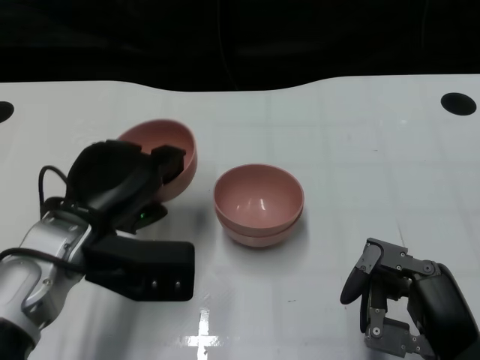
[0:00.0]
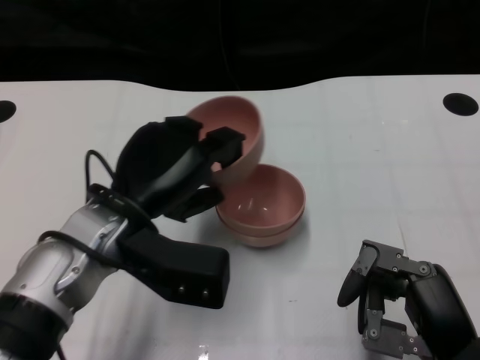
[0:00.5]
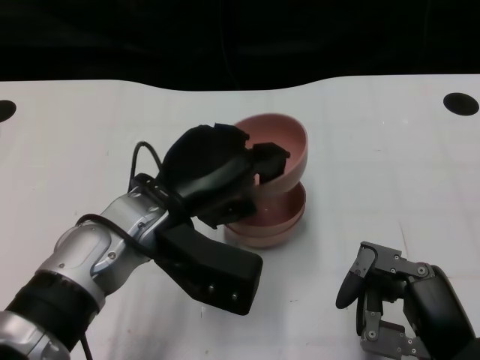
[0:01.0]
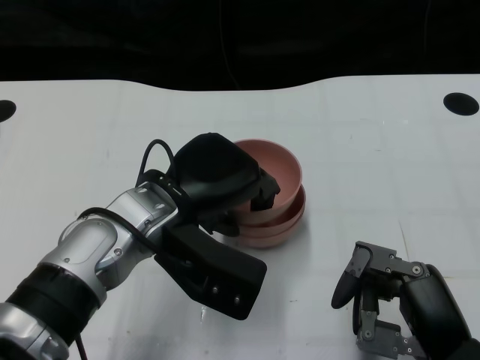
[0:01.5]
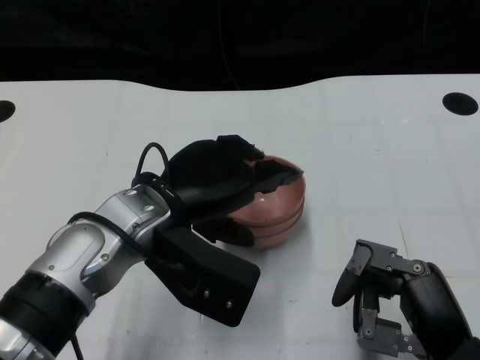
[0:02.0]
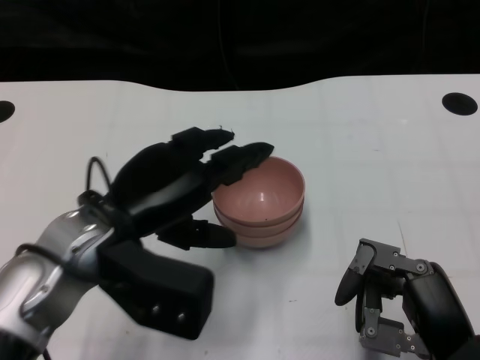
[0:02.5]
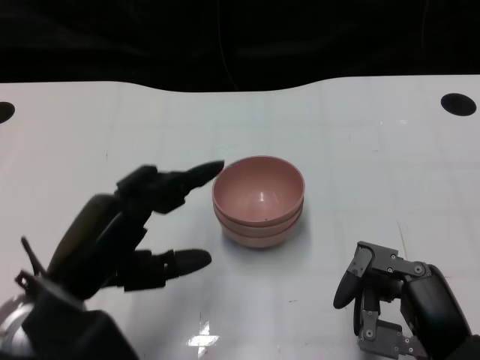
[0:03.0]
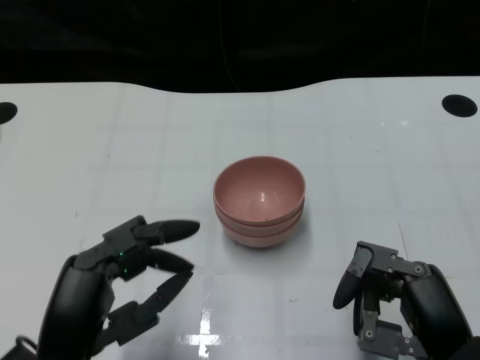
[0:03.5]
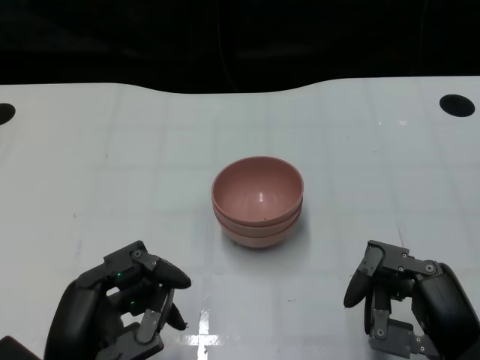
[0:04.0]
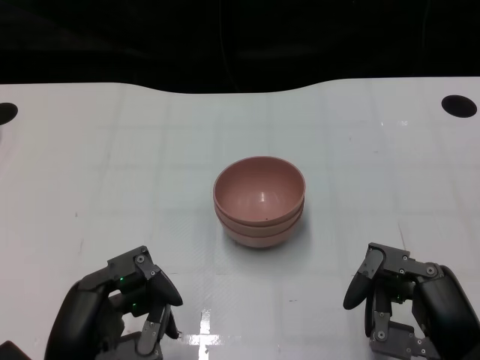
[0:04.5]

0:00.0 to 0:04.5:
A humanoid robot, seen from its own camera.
Task of the whole recording: Pick up the bowl on one side of the table and place it on top of the middle bowl, then pick up the bowl on the other side of the table and place it on top of the middle bowls.
Step, 0:00.0 to 0:02.5: Place the bowl on the left onto the bowl in the middle with left gripper.
0:00.0 to 0:02.0: The left hand travels to the right by approximately 5 cm.
0:02.0 to 0:04.5: The left hand heads backward, to the left and downward, covering about 20 cm.

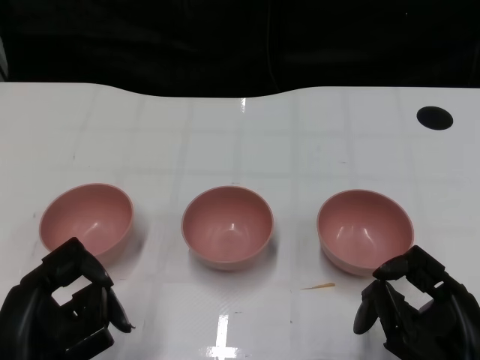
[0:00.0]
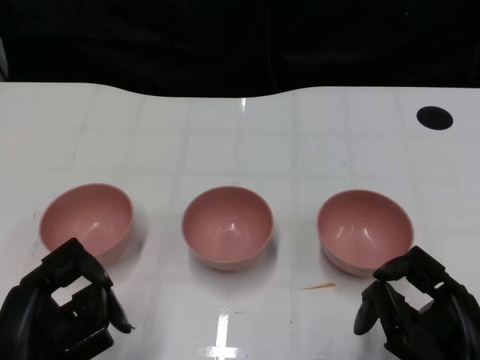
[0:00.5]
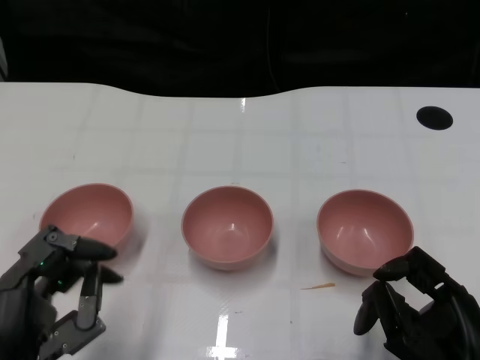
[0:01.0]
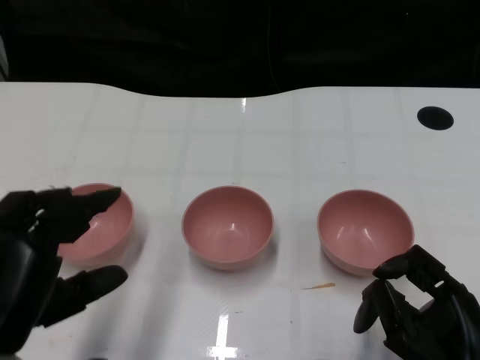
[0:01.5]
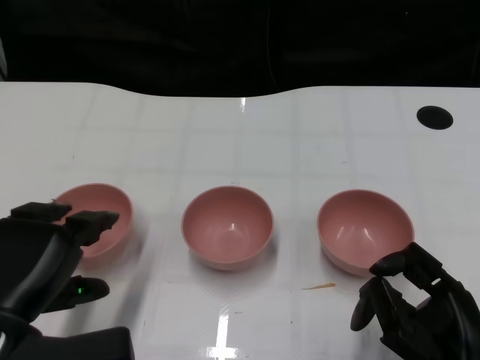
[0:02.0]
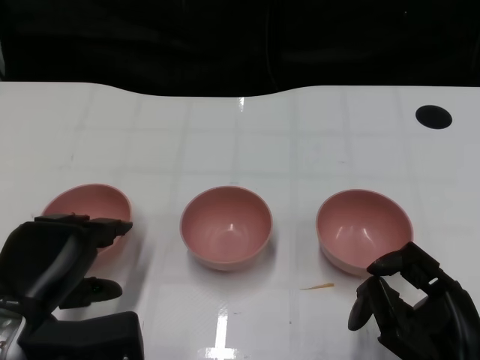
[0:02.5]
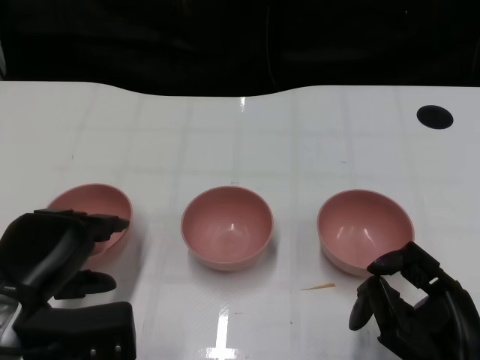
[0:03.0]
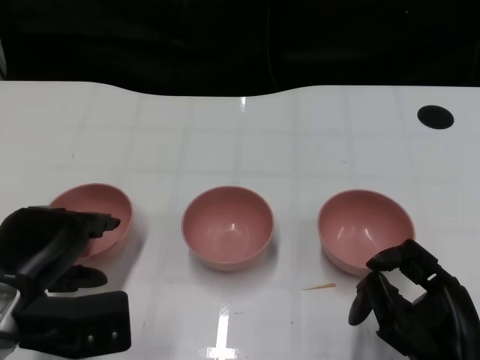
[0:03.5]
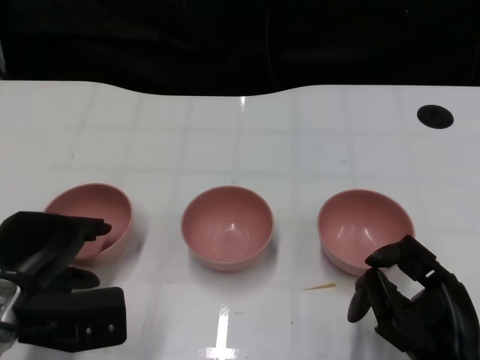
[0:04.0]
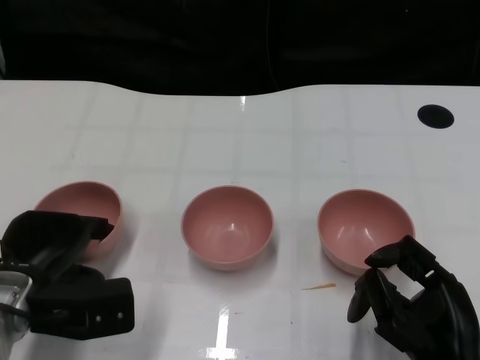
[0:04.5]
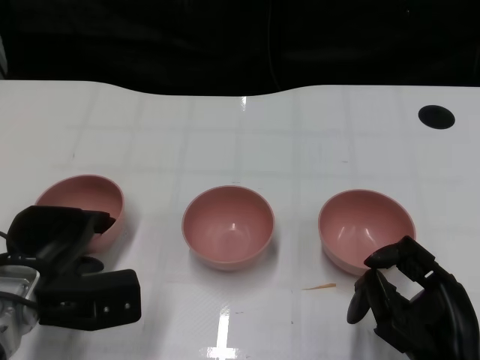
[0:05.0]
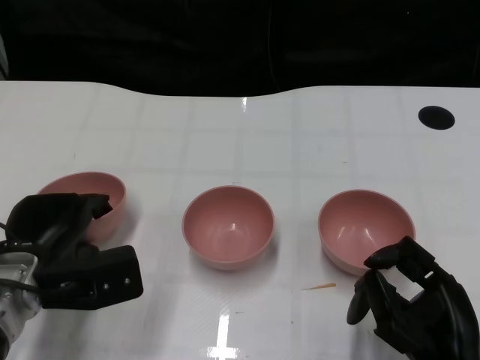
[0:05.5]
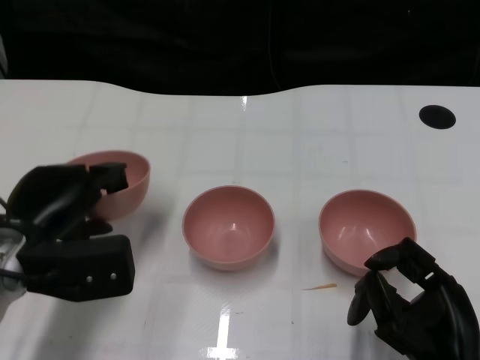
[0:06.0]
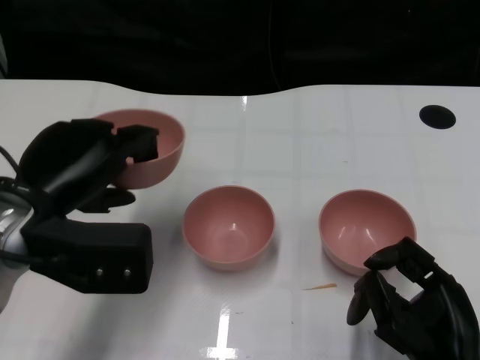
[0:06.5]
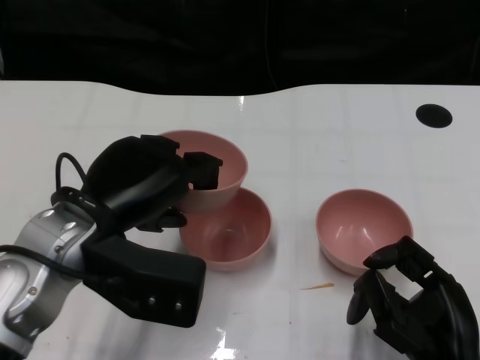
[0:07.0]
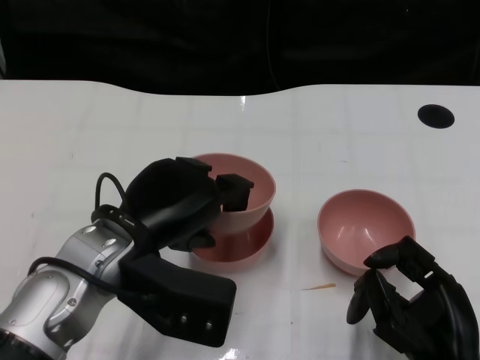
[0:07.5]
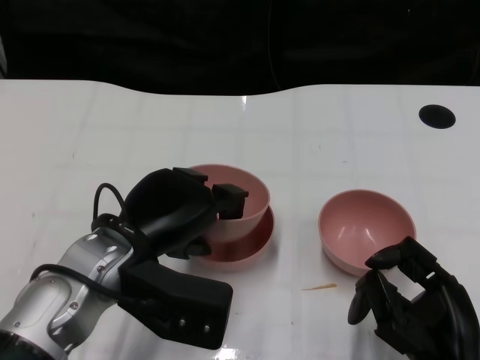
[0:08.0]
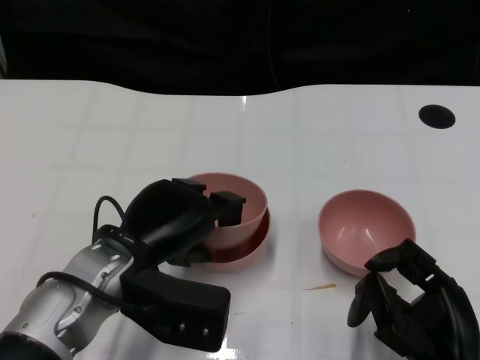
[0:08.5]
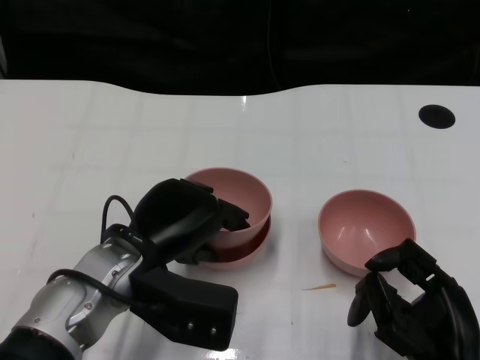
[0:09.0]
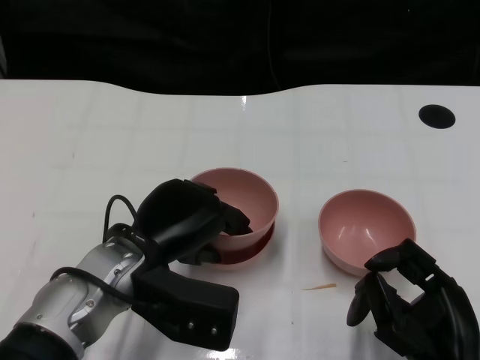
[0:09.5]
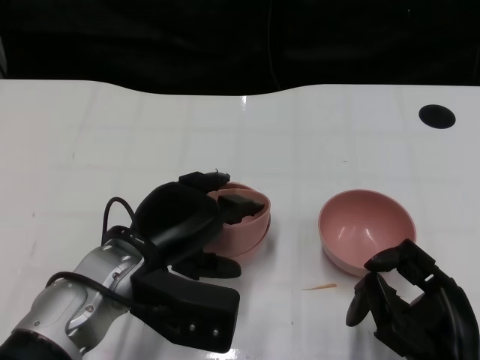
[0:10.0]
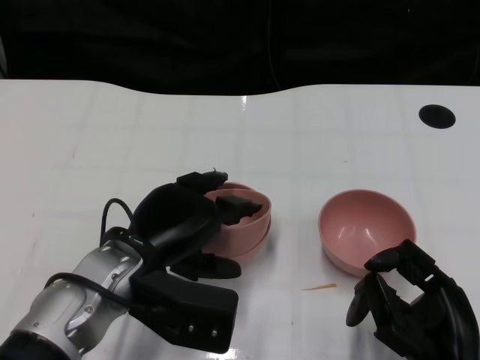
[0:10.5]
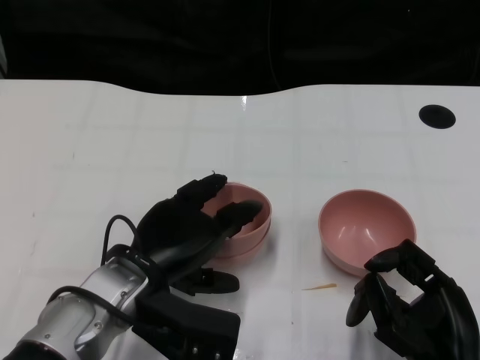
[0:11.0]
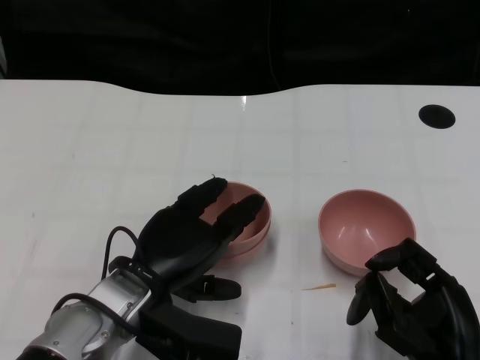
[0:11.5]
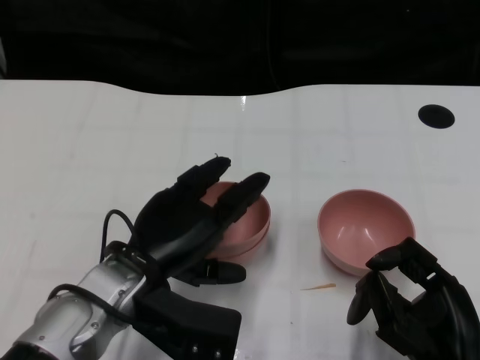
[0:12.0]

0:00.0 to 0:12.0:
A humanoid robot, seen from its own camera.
Task of the whole recording: Pick up the bowl on one side of the table and place it on top of the middle bowl, then pick up the bowl on the other side of the table and place it on top of the middle bowls.
Step, 0:01.0 to 0:05.5: Grasp the bowl on the left with the left gripper.
0:02.0 to 0:04.0: The left hand is displaced forward by some 5 cm.
0:04.0 to 0:06.0: There are only small adjustments of the hands.
0:06.0 to 0:08.0: The left hand is displaced to the right by about 10 cm.
0:08.0 to 0:12.0: The hands make only small movements.

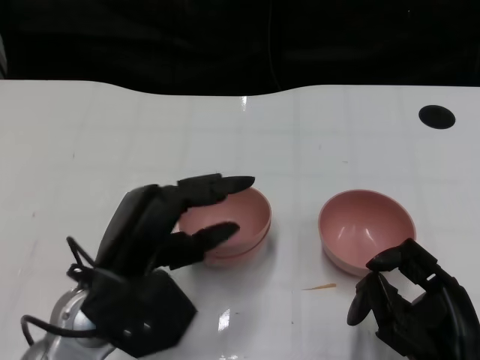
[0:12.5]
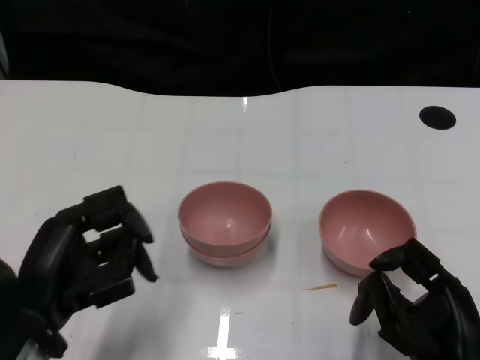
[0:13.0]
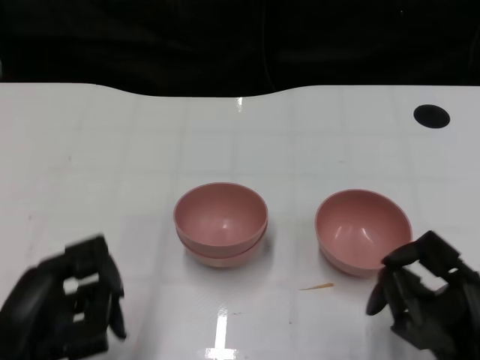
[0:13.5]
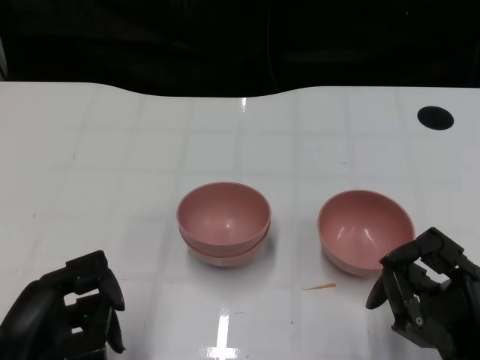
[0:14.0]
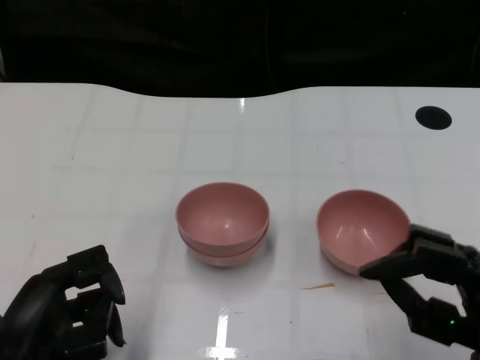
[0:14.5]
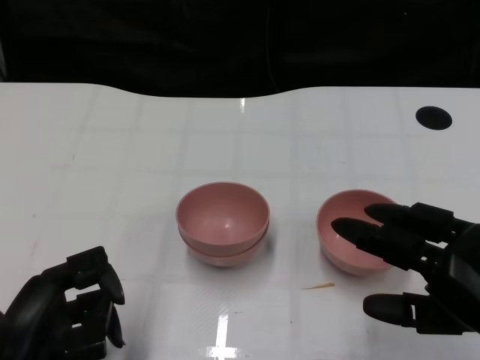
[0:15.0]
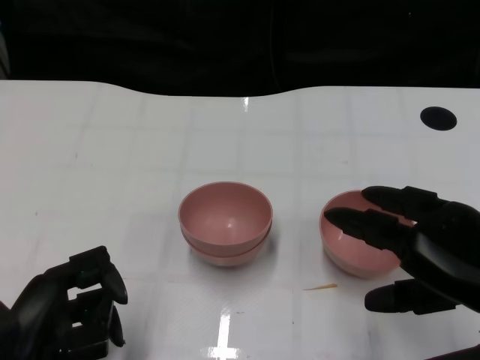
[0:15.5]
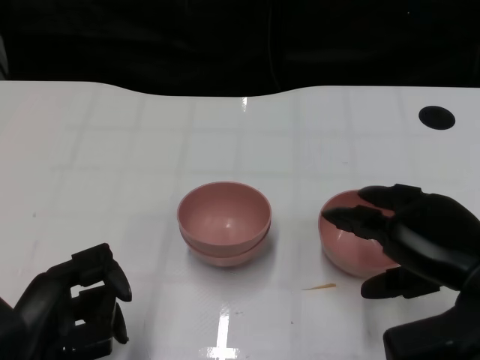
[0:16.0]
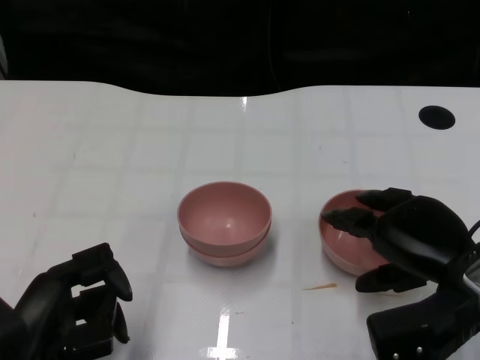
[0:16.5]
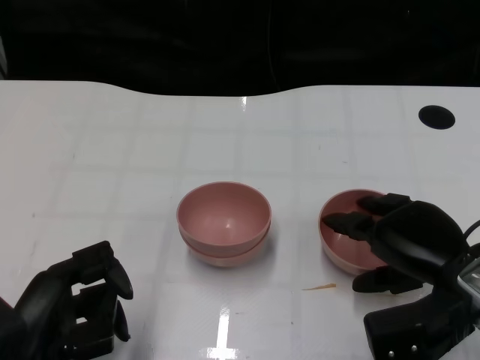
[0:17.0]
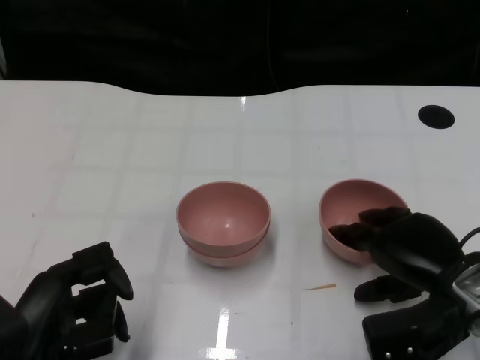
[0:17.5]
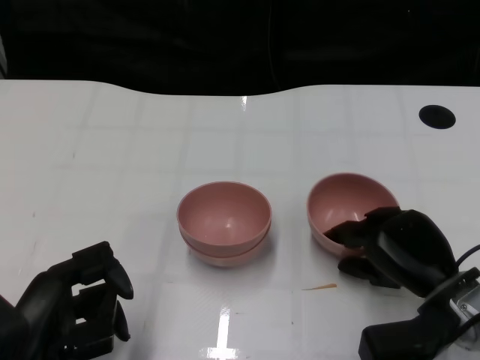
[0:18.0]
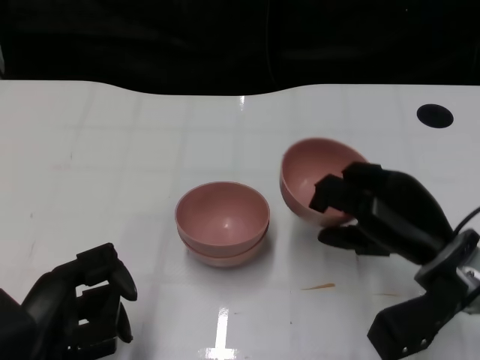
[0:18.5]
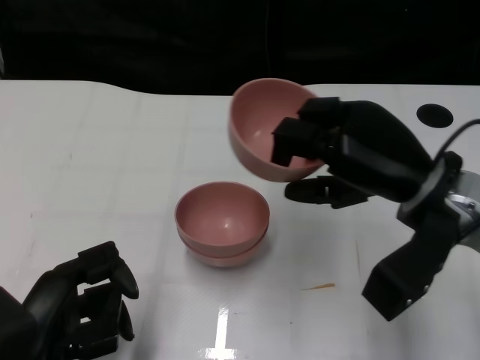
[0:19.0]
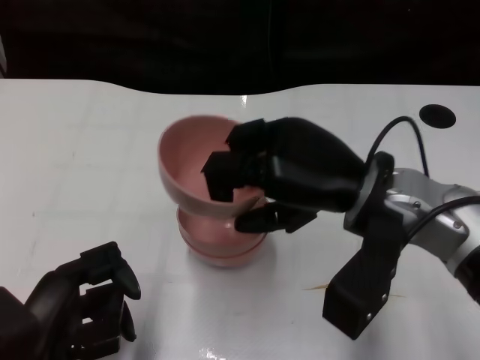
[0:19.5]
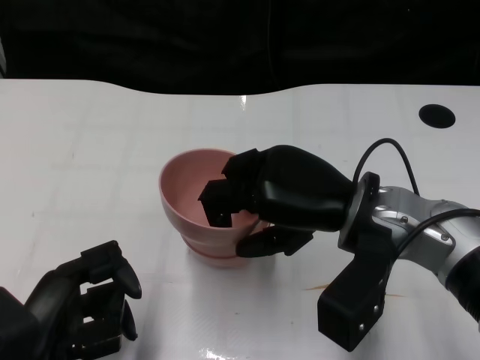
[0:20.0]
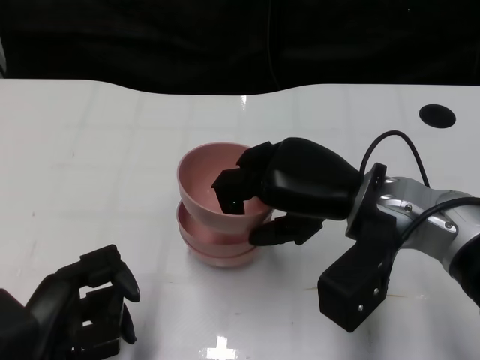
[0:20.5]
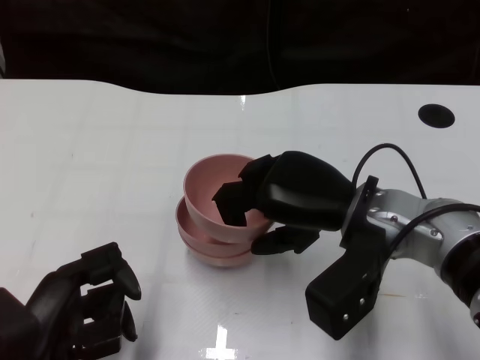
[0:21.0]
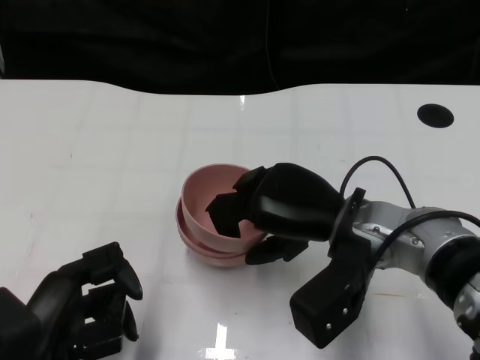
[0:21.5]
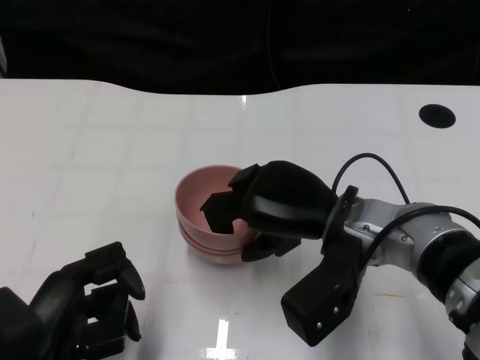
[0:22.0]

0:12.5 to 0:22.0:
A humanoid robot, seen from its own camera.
Task of the whole recording: Pick up the bowl on one side of the table and place it on top of the middle bowl, then pick up the bowl on the other side of the table and place it on top of the middle bowls.
Step, 0:12.5 to 0:18.0: Grasp the bowl on the right with the right gripper.
0:12.5 to 0:14.5: The left hand is displaced to the left and backward by roughly 10 cm.
0:14.5 to 0:16.5: The right hand heads forward, covering roughly 10 cm.
0:16.5 to 0:18.0: The right hand goes roughly 5 cm downward.
0:18.0 to 0:20.0: The right hand heads upward and to the left, covering about 15 cm.
